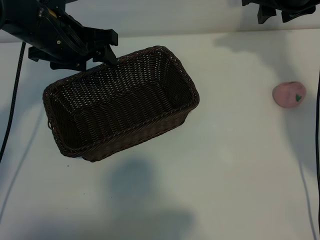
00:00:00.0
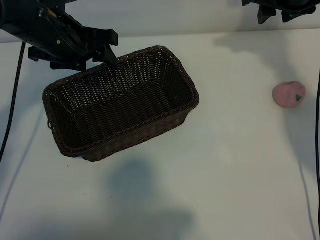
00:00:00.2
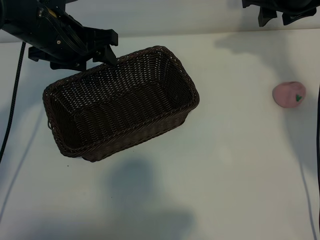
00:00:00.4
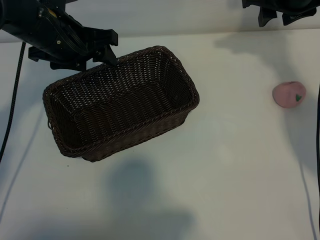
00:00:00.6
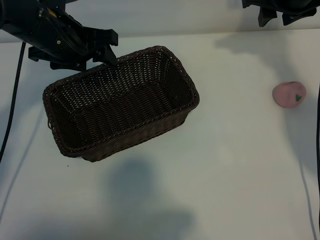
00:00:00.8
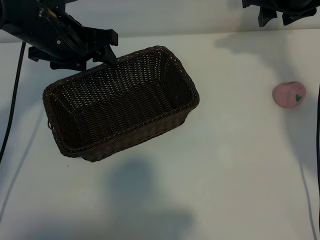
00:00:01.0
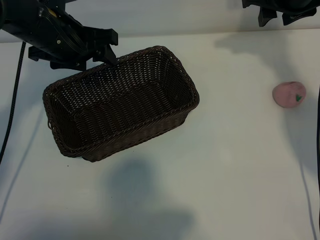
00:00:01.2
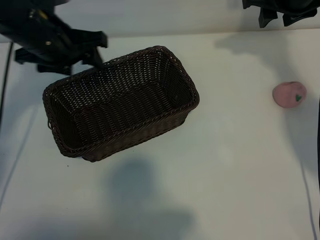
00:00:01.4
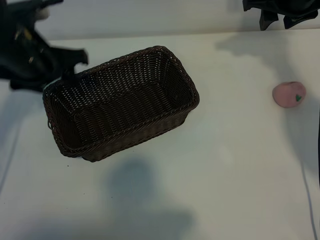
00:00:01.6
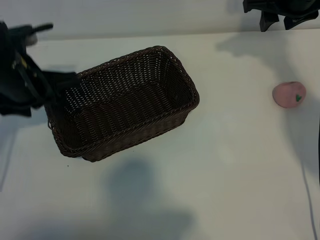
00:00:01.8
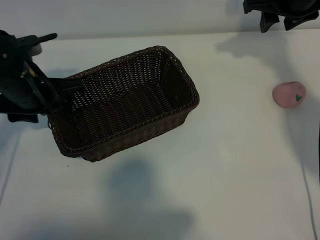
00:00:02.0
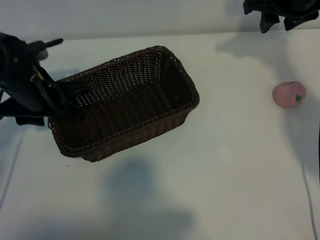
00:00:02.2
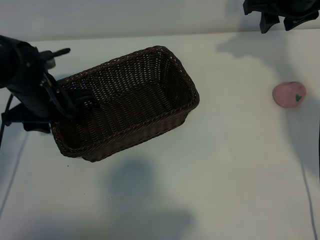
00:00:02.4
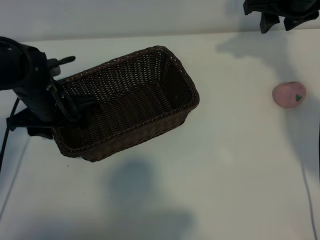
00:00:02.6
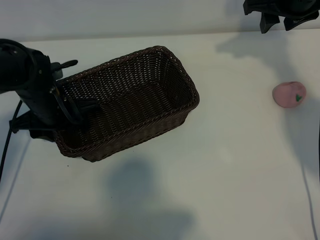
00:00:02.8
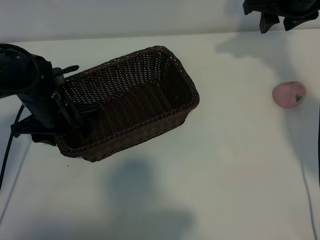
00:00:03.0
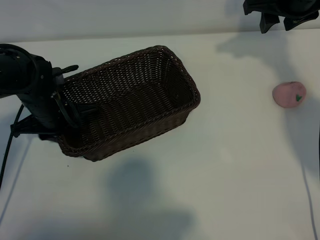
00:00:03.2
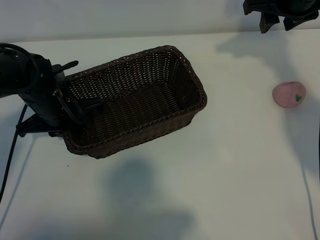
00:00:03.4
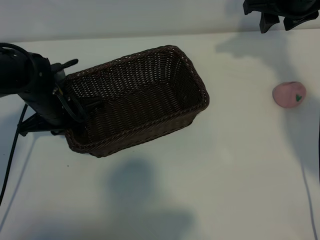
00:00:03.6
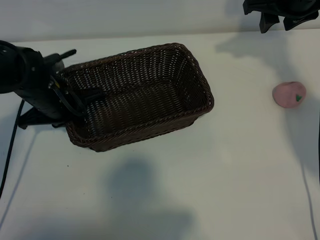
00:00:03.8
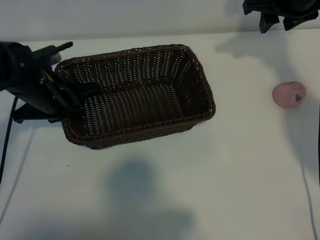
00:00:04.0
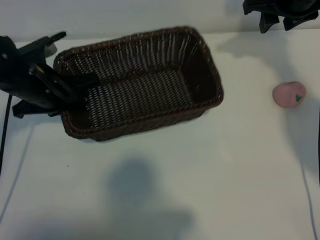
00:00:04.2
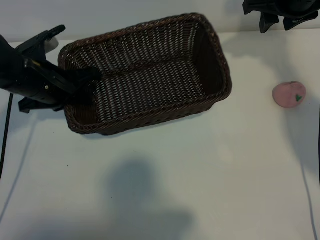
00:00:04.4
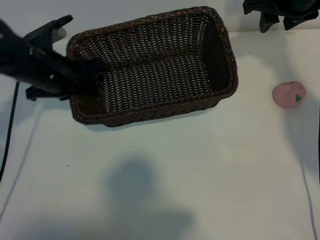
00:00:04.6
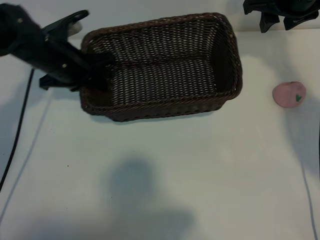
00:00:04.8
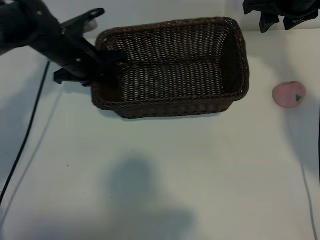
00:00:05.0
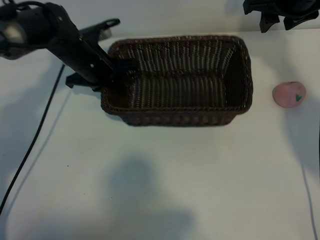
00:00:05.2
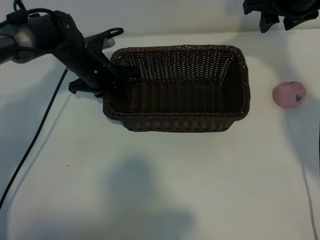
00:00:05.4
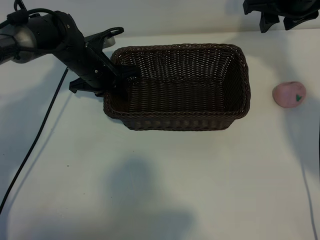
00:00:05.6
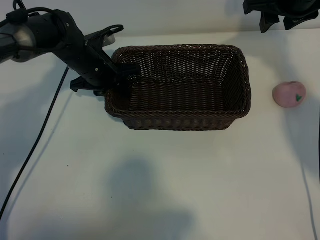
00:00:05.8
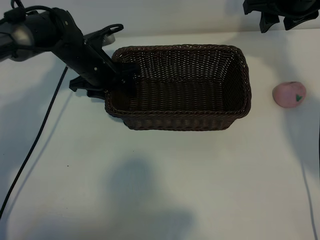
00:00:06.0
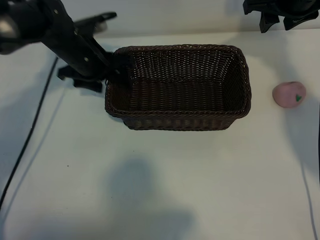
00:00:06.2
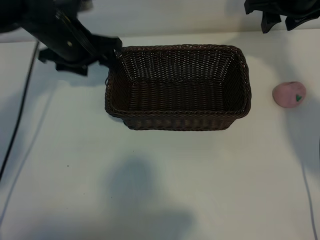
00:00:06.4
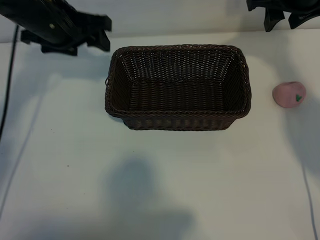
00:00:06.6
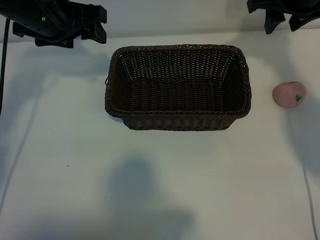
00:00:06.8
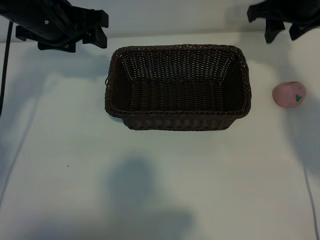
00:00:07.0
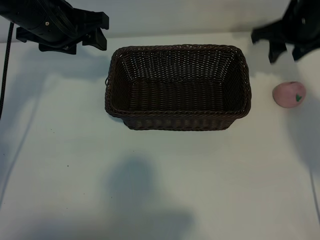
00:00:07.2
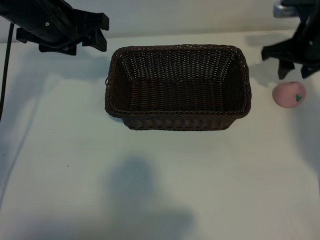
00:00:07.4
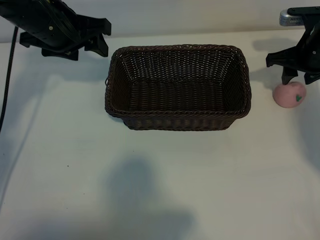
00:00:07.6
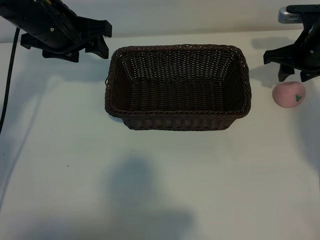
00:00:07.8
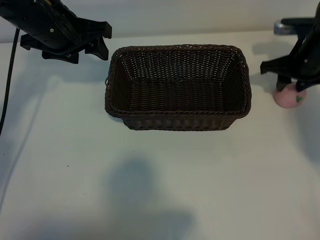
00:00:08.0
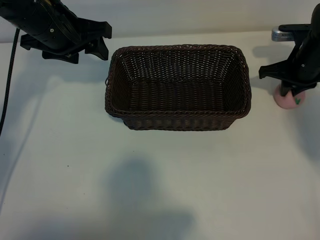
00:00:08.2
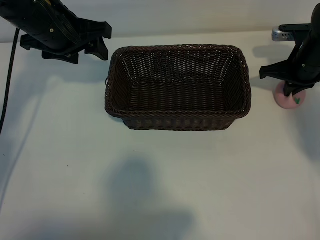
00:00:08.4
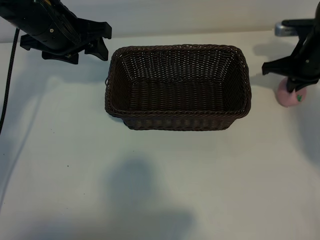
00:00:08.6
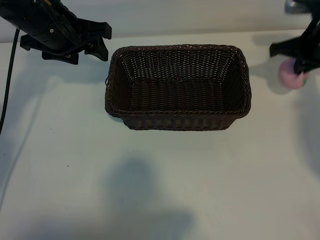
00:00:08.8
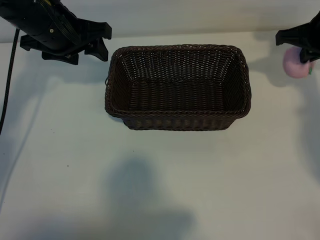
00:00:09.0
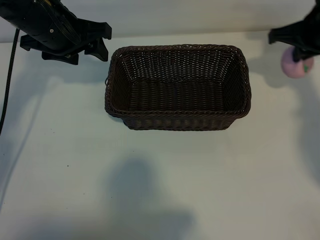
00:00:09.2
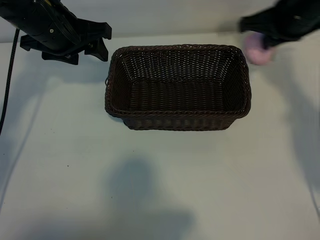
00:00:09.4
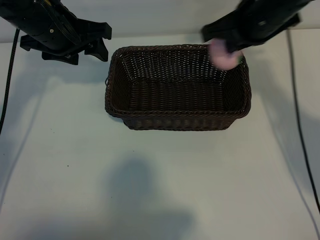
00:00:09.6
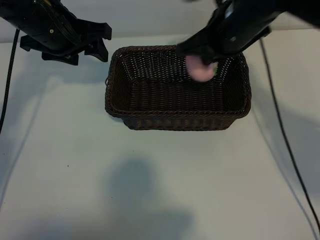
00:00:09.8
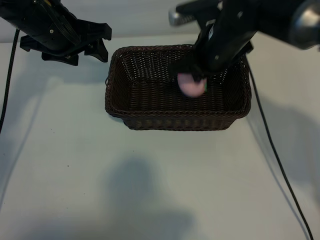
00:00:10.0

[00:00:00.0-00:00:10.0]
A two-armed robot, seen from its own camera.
Task of the whole recording: pick up the peach and put it into the basket.
Step, 00:00:01.2 to 00:00:03.4: Grasp the basket with left gripper.
Step, 00:00:03.8 to 00:00:06.0: Place the basket in the center of view with left gripper.
Step, 00:00:06.4 to 00:00:08.2: Grasp the peach with right gripper.
